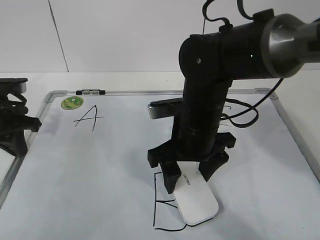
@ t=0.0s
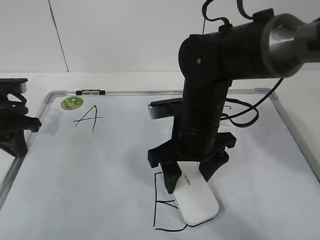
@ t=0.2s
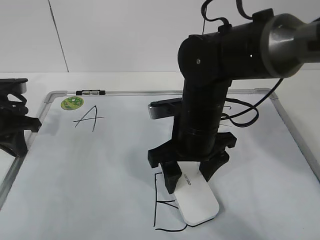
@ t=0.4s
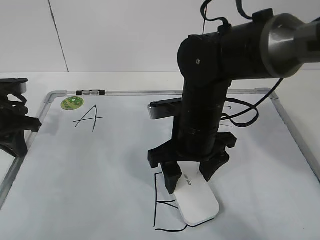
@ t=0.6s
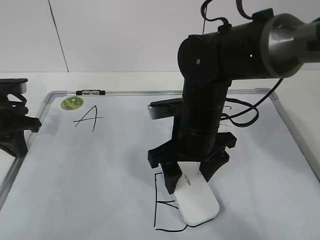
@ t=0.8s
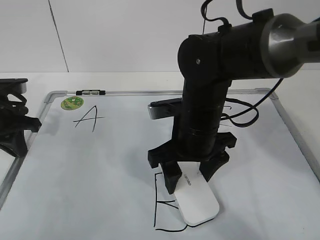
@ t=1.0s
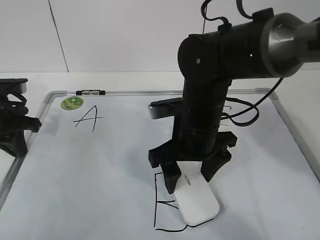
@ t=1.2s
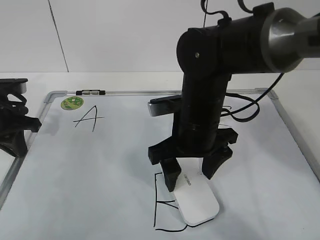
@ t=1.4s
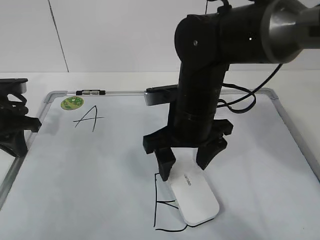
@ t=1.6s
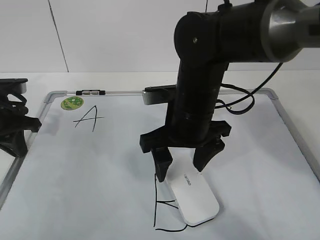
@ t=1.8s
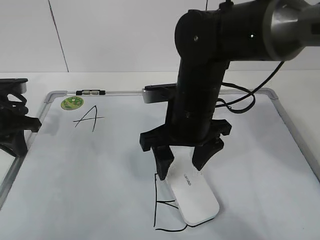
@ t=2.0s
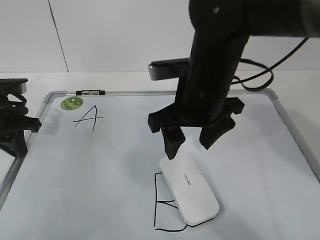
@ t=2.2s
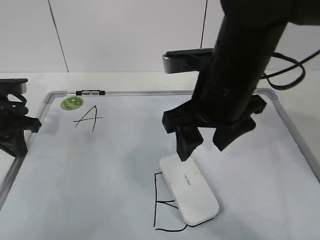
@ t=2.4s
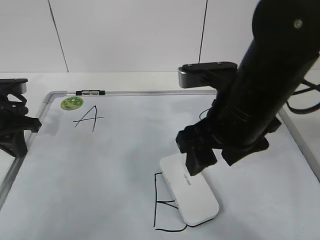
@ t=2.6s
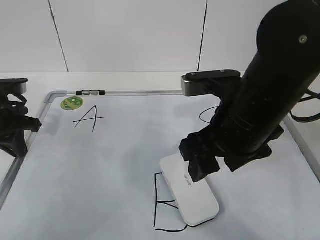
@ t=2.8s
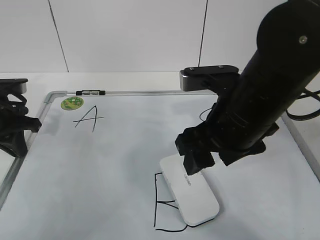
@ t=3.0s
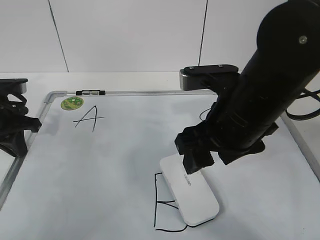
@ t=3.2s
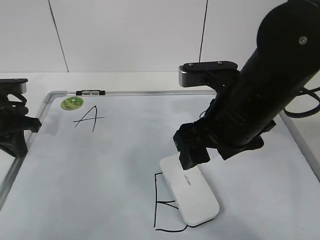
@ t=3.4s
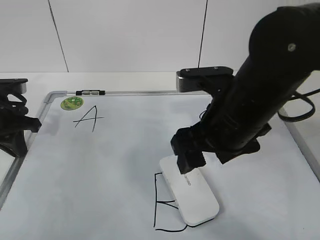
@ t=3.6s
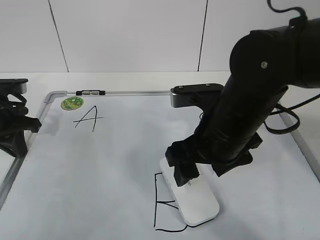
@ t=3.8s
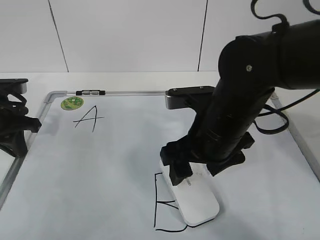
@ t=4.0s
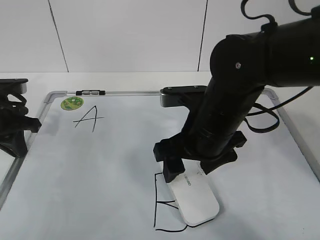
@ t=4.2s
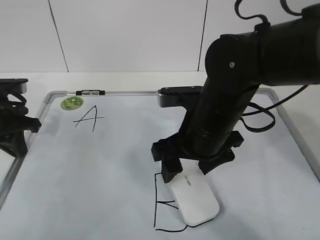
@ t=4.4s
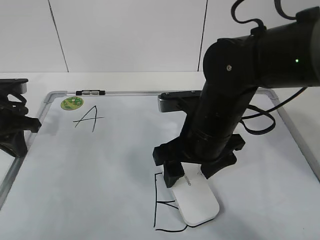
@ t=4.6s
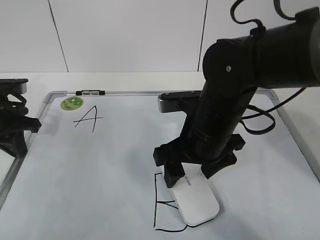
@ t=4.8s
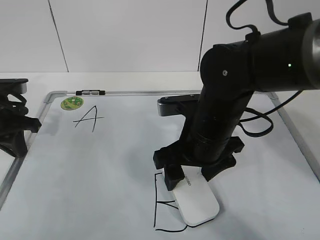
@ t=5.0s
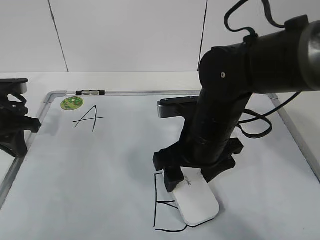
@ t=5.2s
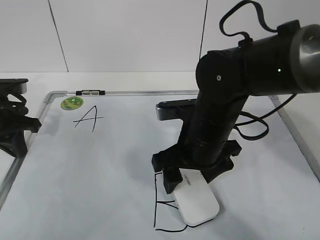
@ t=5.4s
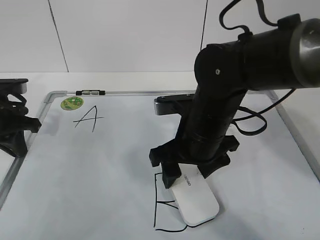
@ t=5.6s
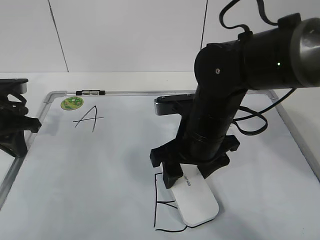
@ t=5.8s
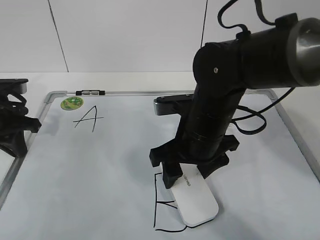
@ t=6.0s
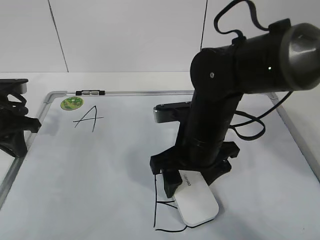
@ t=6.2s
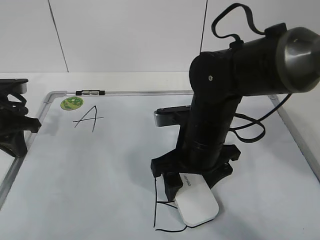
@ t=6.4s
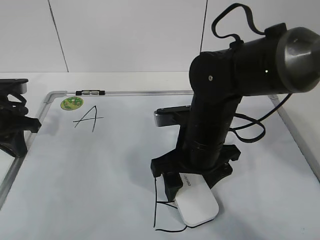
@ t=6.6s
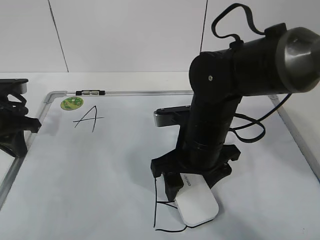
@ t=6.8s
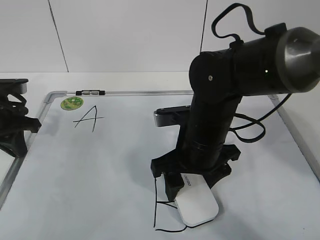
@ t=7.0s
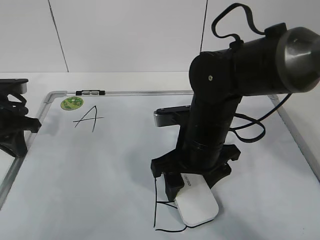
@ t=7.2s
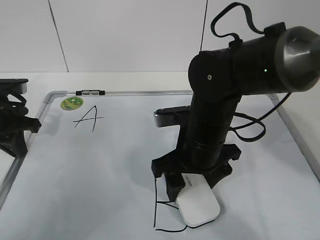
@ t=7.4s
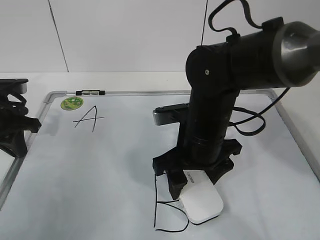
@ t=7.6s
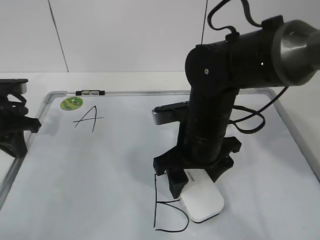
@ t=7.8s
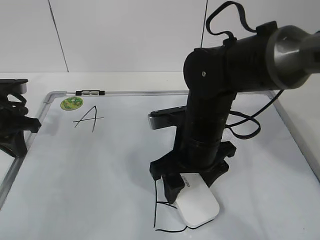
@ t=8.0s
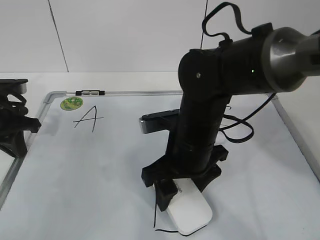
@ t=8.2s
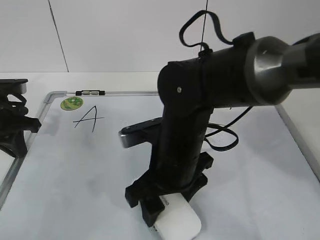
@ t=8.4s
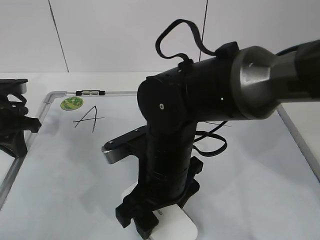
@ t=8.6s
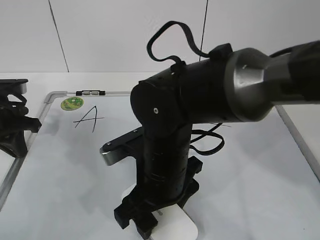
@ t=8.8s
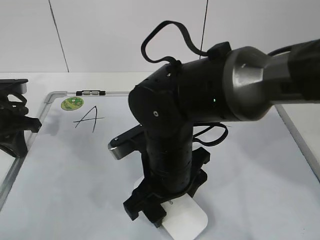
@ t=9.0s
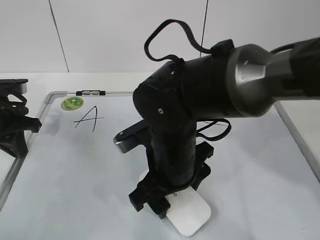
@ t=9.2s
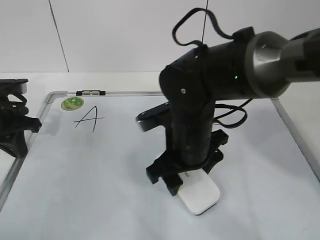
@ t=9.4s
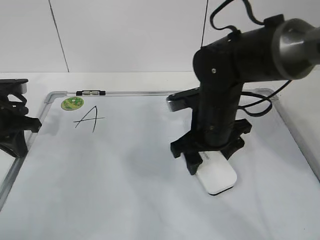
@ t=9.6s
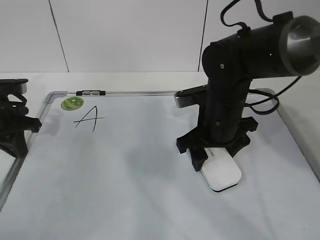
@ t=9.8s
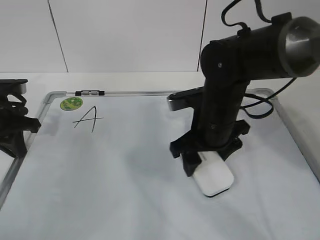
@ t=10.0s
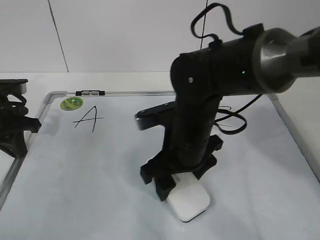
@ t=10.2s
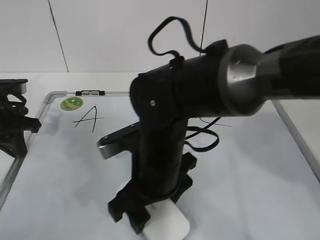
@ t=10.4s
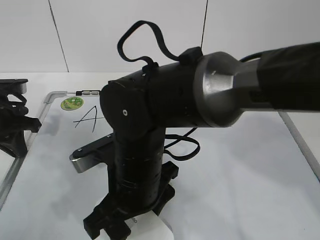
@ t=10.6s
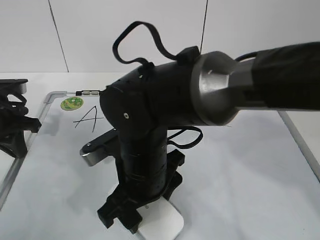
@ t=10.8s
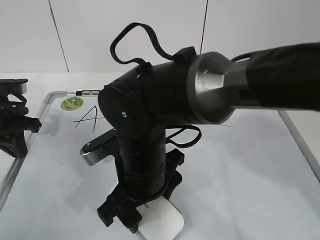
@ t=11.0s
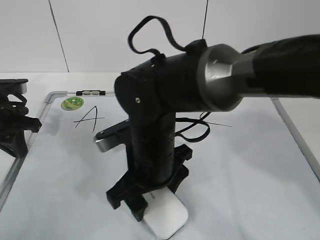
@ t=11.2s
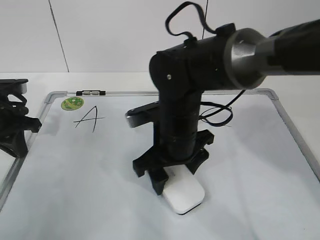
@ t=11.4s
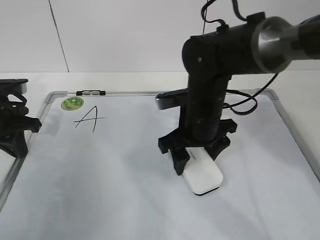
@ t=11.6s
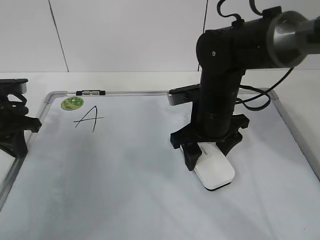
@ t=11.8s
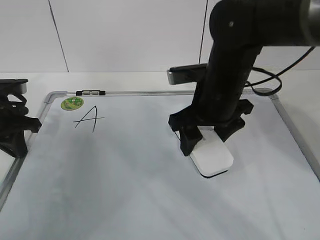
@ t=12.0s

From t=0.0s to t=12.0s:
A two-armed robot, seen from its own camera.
Task of the whole recording: pick up the eraser on the blackboard and erase the letter "B".
Step, from t=4.2s to t=7.6s: Erase the letter B with your right hand.
Step, from t=7.8s to t=10.4s: Put down the eraser with your right hand.
From t=0.0s to t=1.6s: The right gripper opens its fingers.
From t=1.6s to t=3.0s: The right gripper is displaced backward by about 5 cm, and closes its fingers.
From t=3.0s to t=4.4s: The right gripper changes place by approximately 5 cm, and opens.
From t=4.4s to t=6.0s: The right gripper closes.
From t=6.0s to t=7.6s: The right gripper opens, then closes again.
From t=7.6s to t=9.0s: The right gripper travels to the left by roughly 5 cm.
From t=9.0s to t=10.4s: The right gripper moves some 10 cm to the right and comes back.
From t=10.4s to t=12.0s: The right gripper shifts about 10 cm to the right and forward.

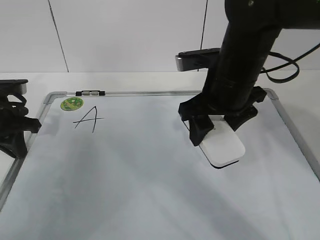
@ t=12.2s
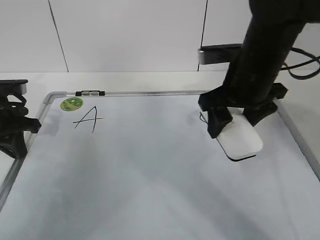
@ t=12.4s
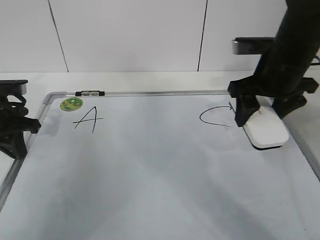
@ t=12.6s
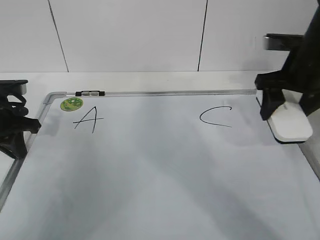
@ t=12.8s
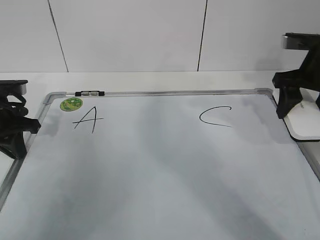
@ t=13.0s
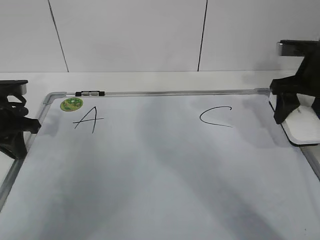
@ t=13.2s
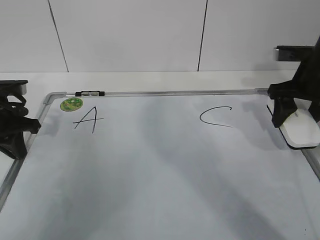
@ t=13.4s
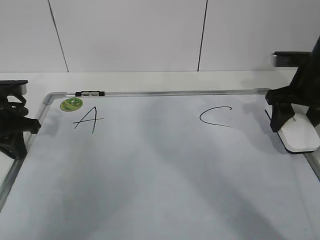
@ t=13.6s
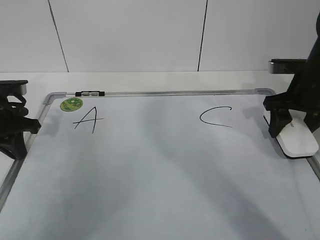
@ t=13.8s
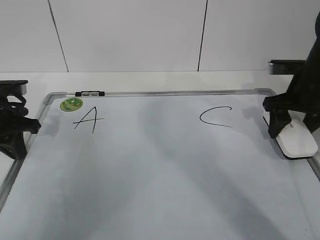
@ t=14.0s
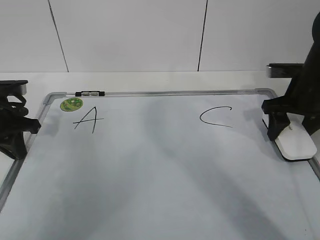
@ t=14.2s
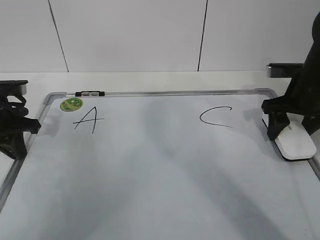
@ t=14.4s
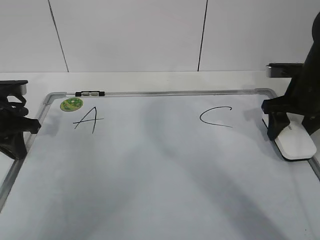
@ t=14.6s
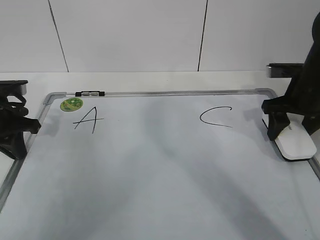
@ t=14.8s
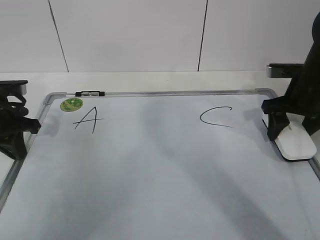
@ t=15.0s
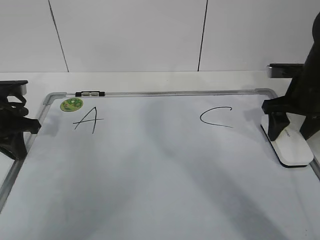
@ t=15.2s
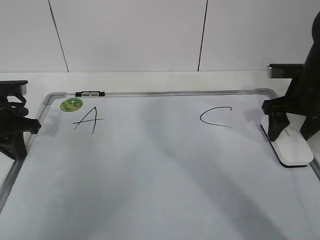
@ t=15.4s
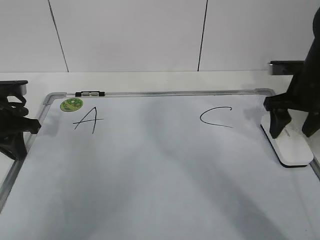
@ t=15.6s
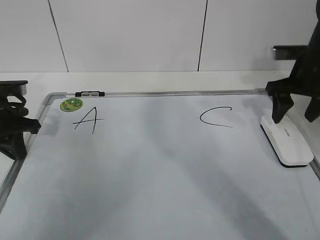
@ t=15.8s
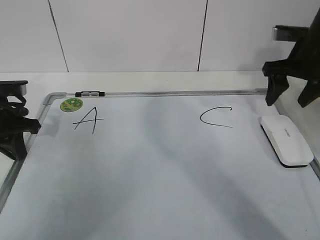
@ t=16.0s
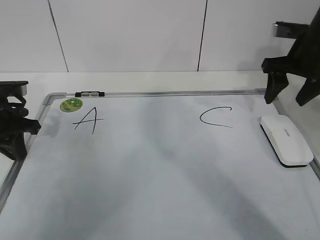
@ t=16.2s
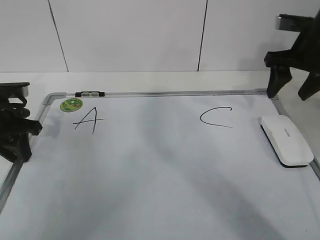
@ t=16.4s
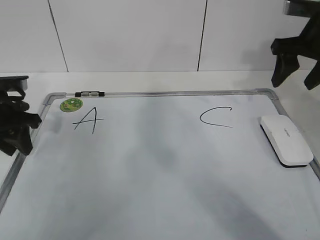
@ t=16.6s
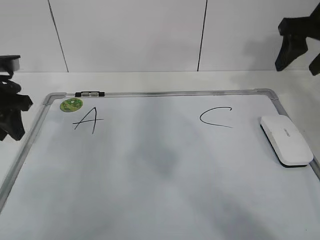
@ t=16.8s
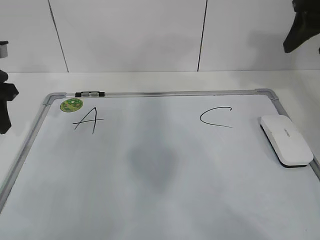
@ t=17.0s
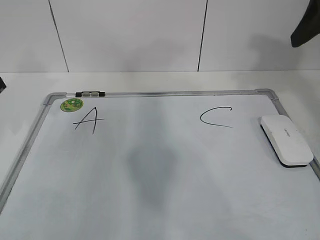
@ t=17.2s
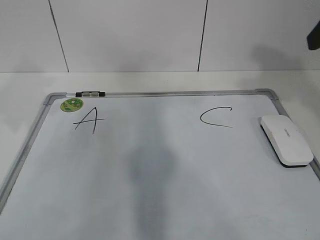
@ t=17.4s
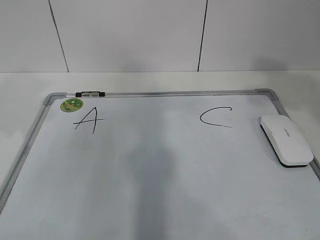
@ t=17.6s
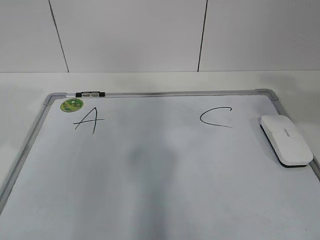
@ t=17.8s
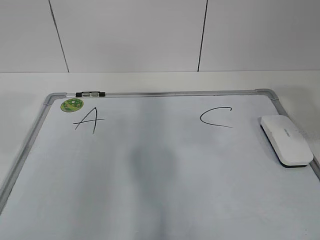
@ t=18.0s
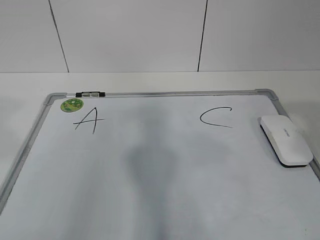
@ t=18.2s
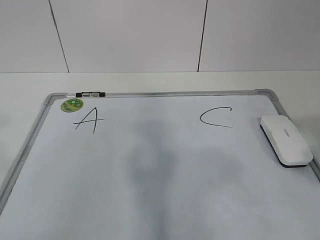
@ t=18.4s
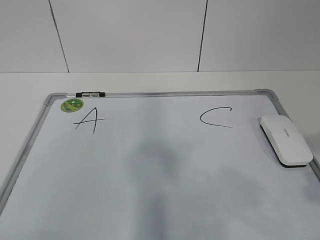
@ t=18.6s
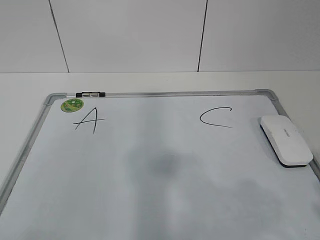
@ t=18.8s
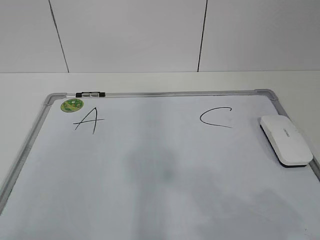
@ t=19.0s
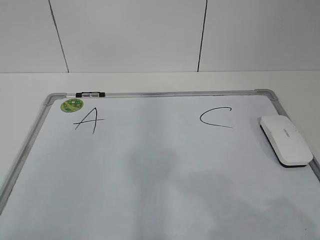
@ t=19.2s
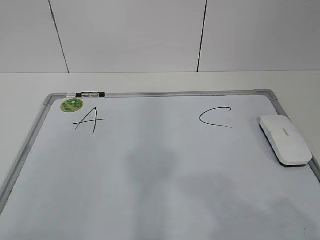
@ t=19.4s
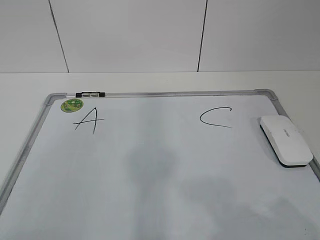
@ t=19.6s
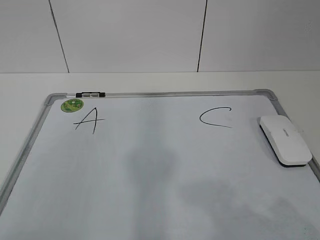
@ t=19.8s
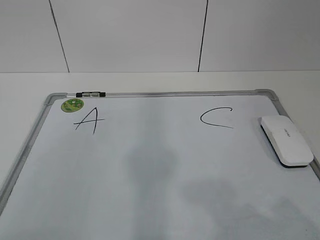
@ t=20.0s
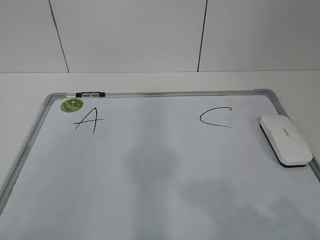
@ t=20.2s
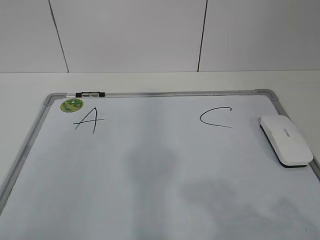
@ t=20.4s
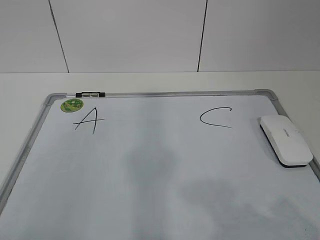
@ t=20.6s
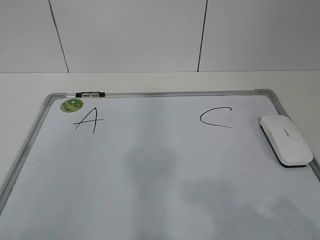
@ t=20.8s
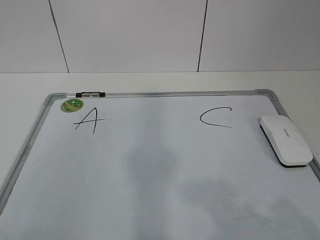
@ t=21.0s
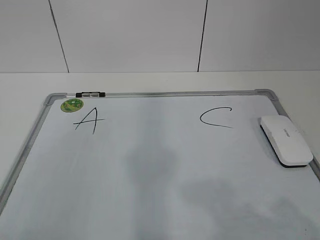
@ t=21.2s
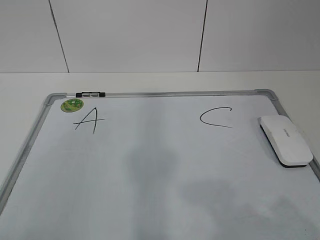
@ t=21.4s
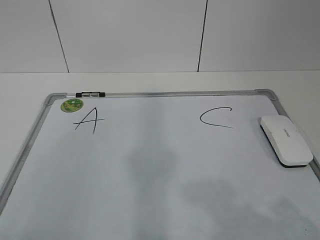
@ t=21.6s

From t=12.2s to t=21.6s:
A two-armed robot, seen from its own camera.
Task of the whole recording: pick up the eraser on the blackboard and erase the letter "B".
From t=12.2s to t=13.8s: The right gripper is displaced to the right by approximately 15 cm.
From t=13.8s to t=15.4s: The right gripper opens its fingers.
From t=15.4s to t=17.0s: The left gripper moves upward, approximately 10 cm, and opens. The right gripper shifts roughly 15 cm upward.
From t=17.0s to t=18.4s: The right gripper moves backward, about 30 cm. The left gripper is displaced backward and upward by approximately 30 cm.
From t=18.4s to t=20.0s: The right gripper is displaced downward and backward by about 10 cm.
